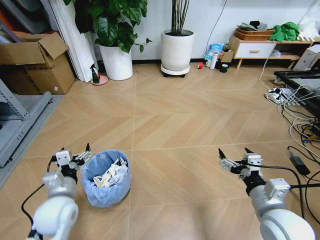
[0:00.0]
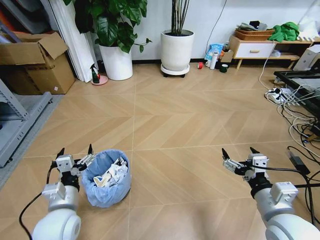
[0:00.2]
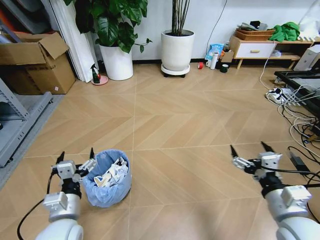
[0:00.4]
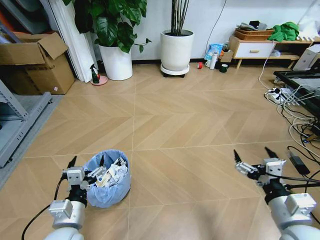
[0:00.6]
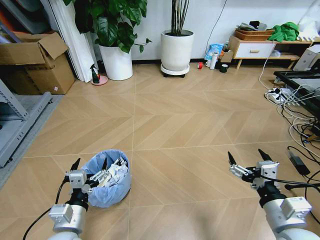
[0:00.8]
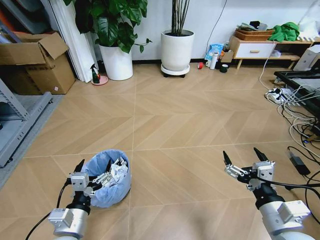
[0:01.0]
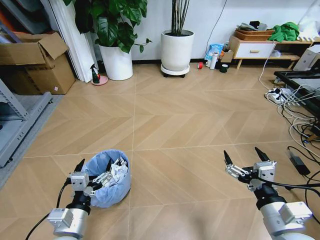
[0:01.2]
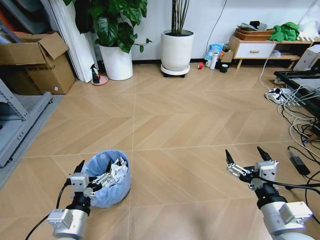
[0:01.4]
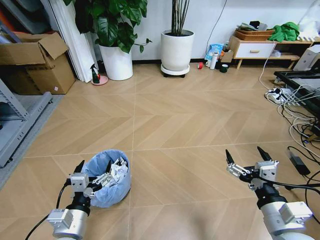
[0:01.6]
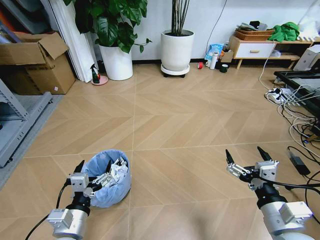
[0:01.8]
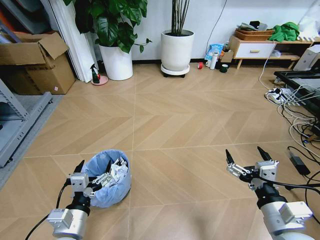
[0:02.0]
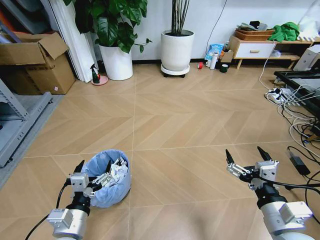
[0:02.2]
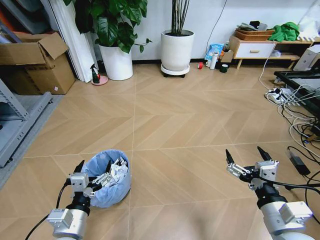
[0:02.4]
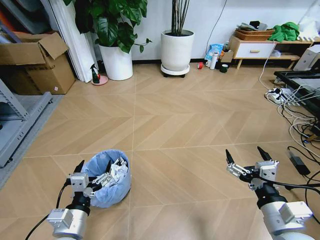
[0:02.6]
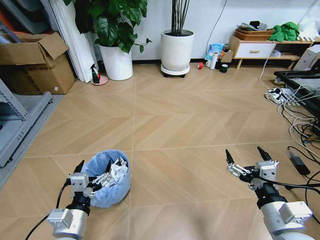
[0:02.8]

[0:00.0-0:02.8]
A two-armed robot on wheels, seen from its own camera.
Task of the whole recording: Pick up the trash bin and place the garbage on the floor into it.
0:00.0 to 0:01.4: The left gripper heads backward, covering roughly 10 cm.
0:01.4 to 0:02.8: Both grippers stay about where they are.
